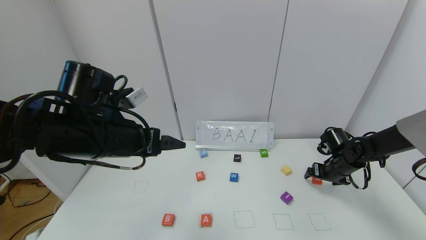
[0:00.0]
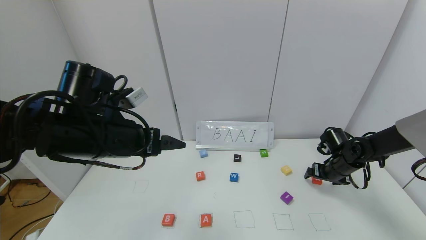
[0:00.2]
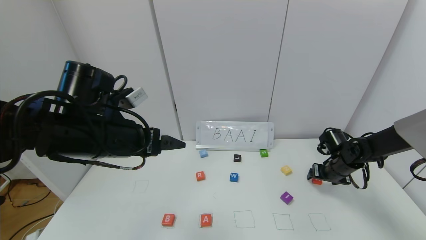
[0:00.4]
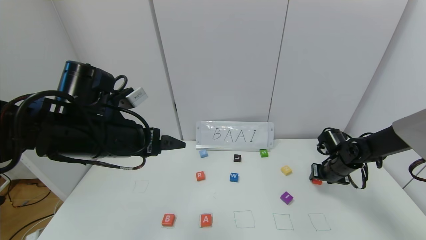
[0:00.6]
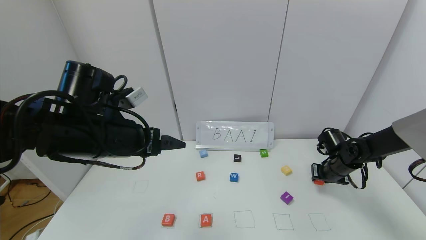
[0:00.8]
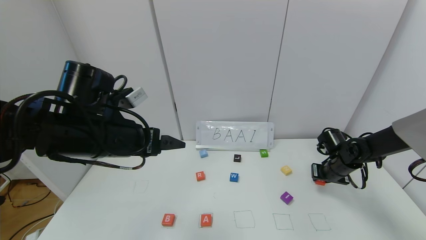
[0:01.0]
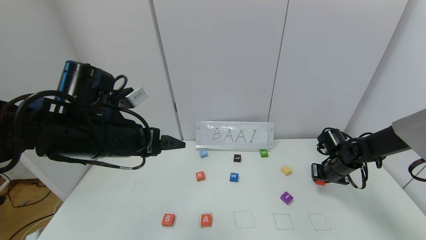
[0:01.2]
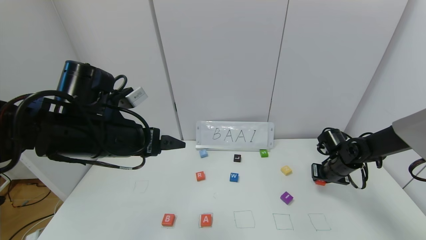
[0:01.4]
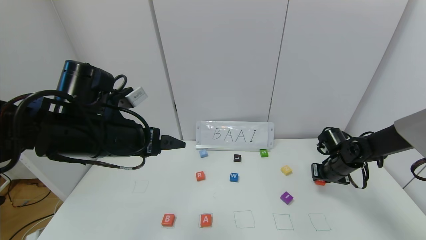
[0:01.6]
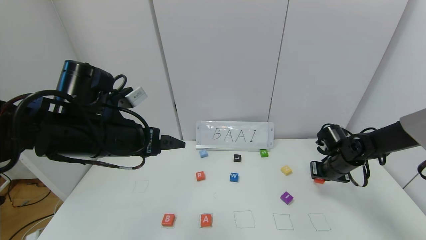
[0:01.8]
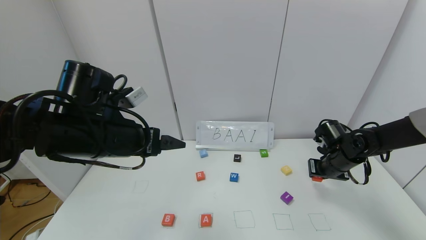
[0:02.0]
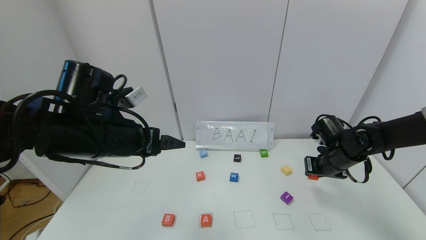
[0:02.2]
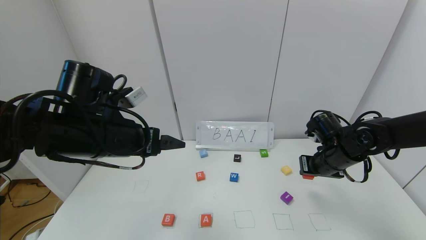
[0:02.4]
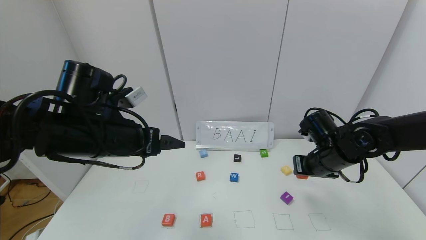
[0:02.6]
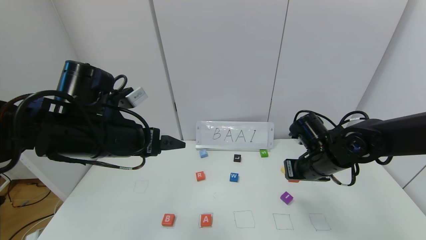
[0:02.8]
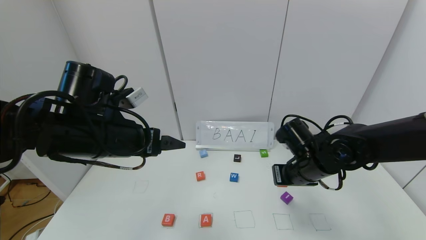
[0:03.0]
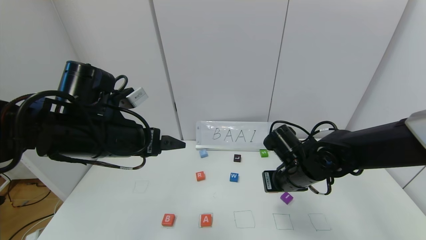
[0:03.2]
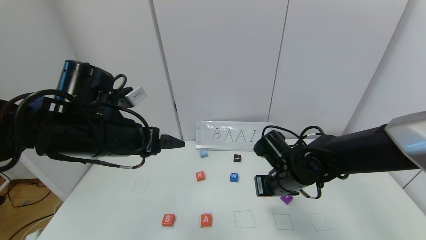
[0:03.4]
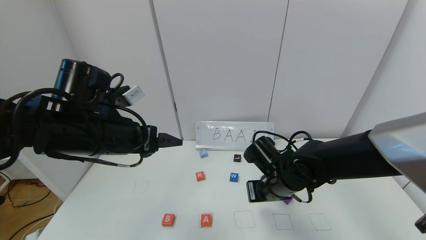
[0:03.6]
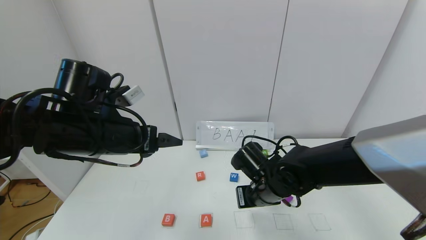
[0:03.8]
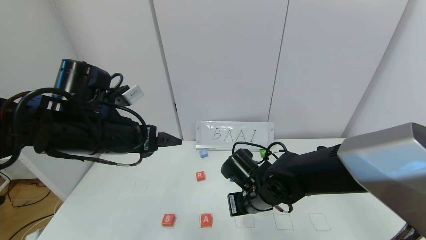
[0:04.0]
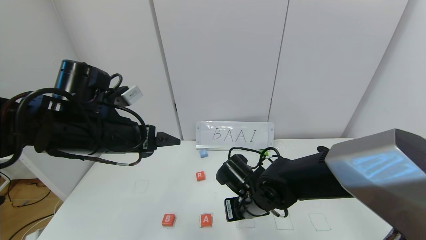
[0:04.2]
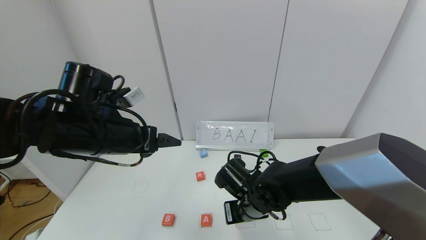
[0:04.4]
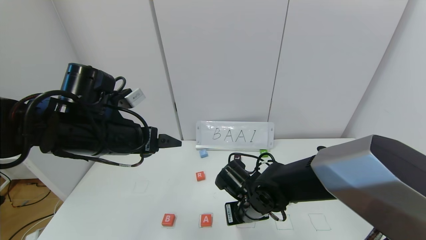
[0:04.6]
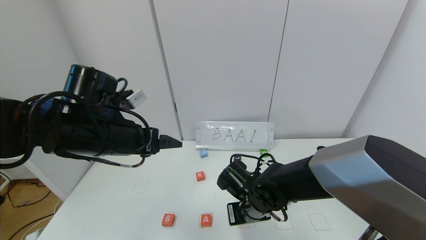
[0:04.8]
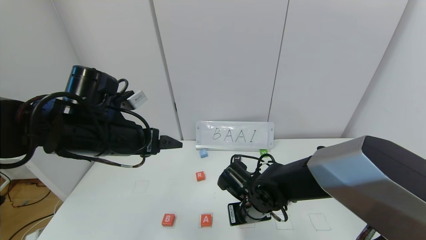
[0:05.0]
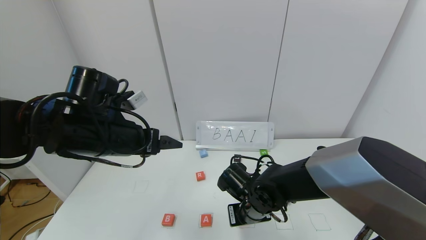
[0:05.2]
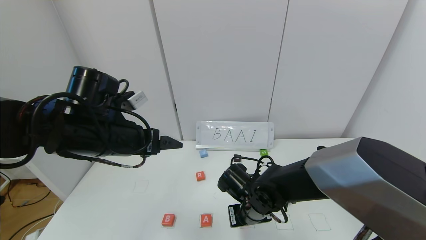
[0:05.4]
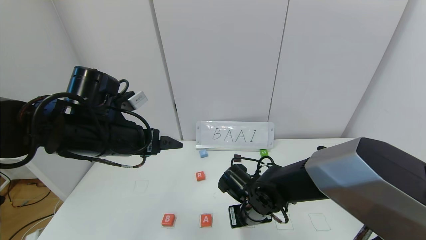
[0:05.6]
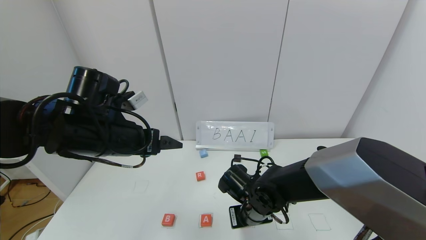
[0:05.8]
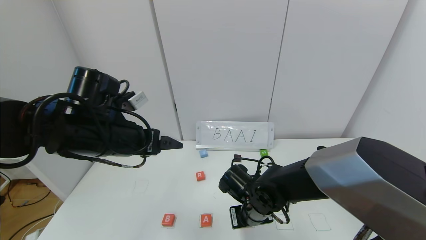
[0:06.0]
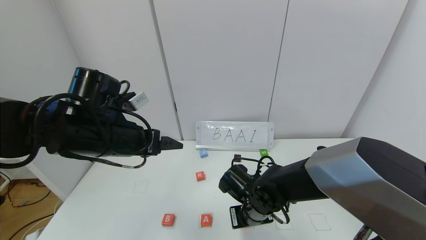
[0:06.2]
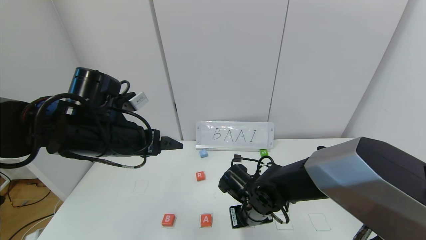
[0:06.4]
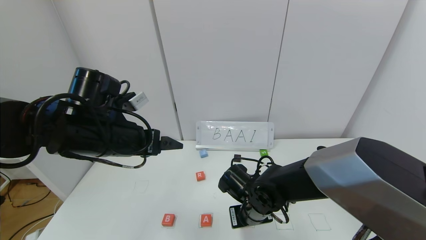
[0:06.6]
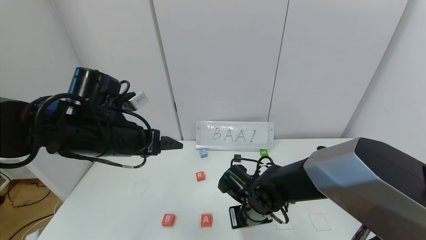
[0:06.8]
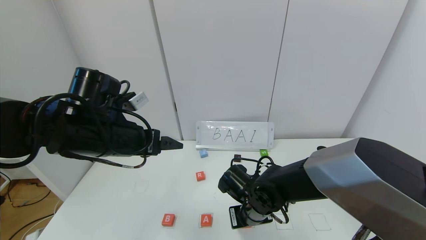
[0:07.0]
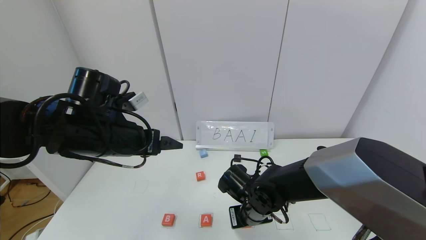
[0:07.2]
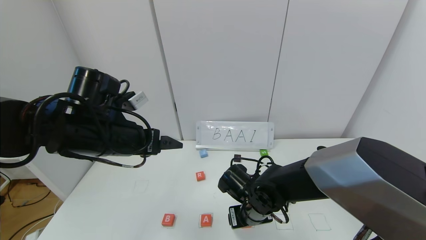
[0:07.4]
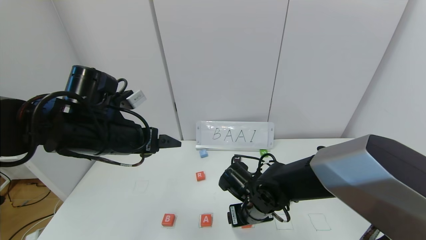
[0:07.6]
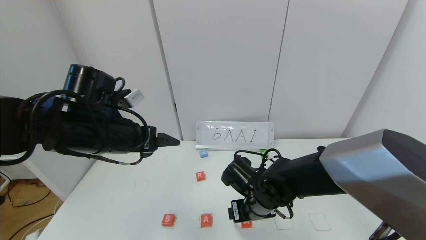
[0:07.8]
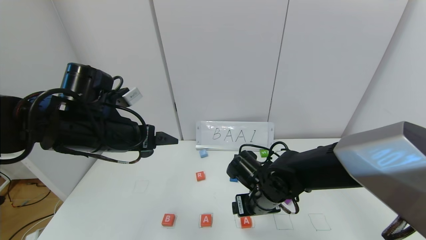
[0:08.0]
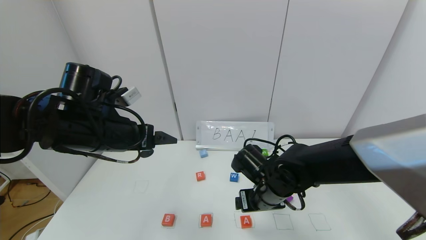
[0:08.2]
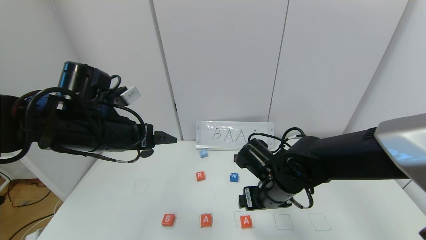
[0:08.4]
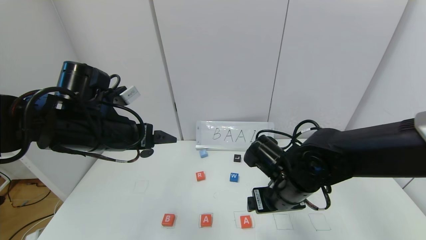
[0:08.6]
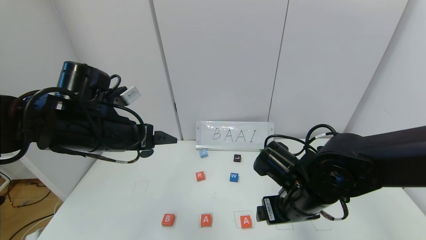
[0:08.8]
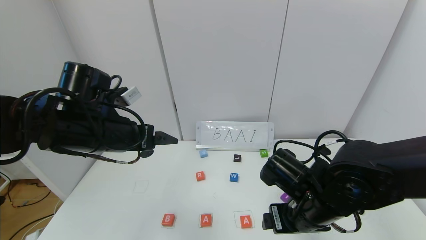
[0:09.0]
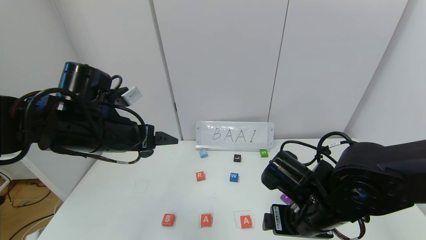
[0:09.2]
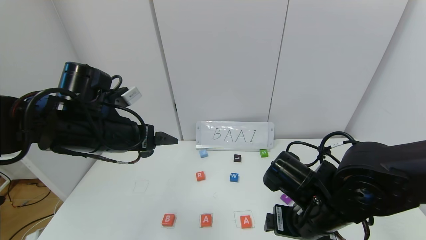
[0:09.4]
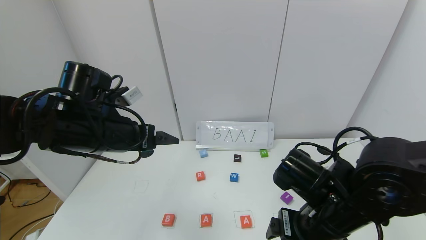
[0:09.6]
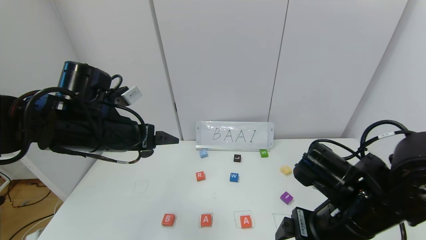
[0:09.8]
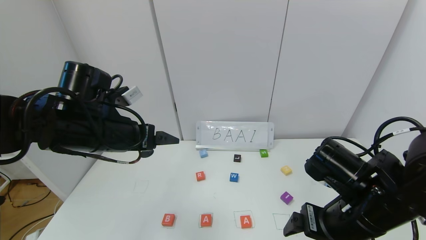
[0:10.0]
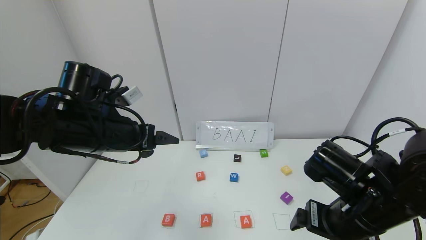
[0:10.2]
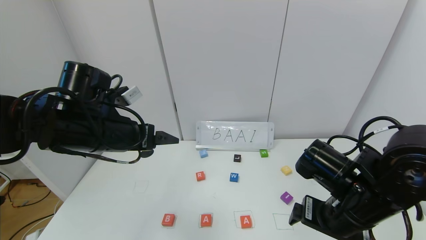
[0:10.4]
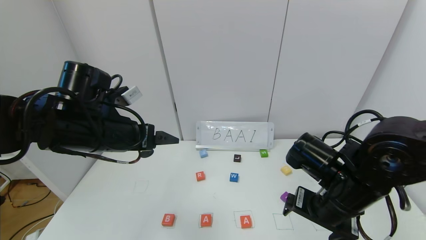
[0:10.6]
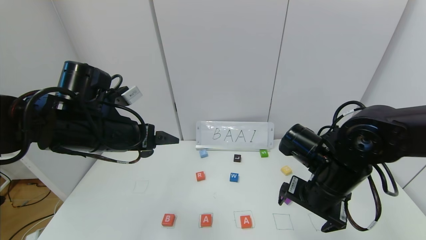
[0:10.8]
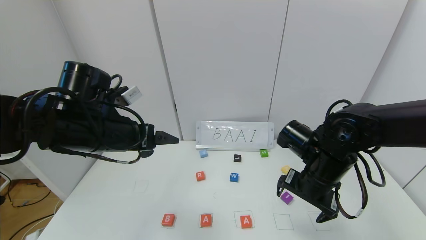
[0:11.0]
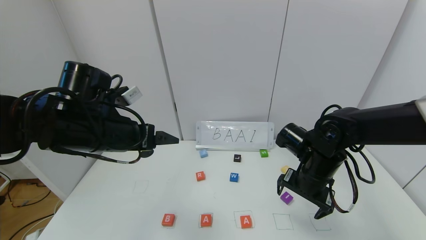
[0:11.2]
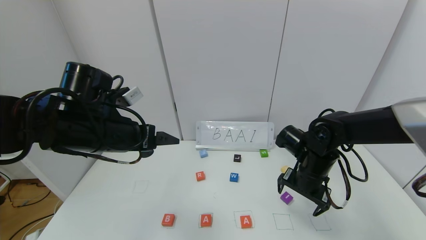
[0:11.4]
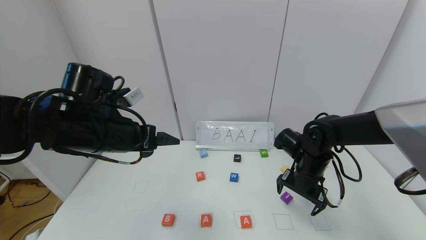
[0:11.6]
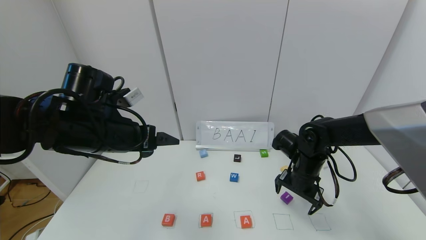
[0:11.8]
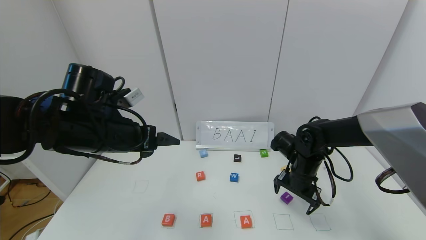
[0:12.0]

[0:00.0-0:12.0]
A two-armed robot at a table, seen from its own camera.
Task of the whole recording: use the gripper to find blocks with the letters b, a, a, and i on the table and arrange them into BAAI, then find r and N and turn the arranged baai into brian.
Step, 0:00.0 to 0:07.4: Place the second block A in the third location.
0:00.0 to 0:01.6: The right gripper closes.
0:01.6 to 0:03.0: The right gripper moves to the left, backward and upward, approximately 20 cm.
0:03.0 to 0:04.4: The right gripper moves to the left and downward, about 15 cm.
0:04.4 to 0:06.0: The grippers make only small movements.
0:06.0 to 0:07.6: The right gripper opens.
0:07.6 to 0:09.0: The right gripper heads upward, to the right and backward, covering approximately 15 cm.
0:09.0 to 0:10.4: The right gripper ends up roughly 5 cm from where it was.
0:10.4 to 0:12.0: The right gripper is displaced forward and downward by some 15 cm.

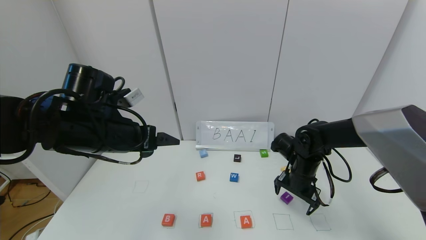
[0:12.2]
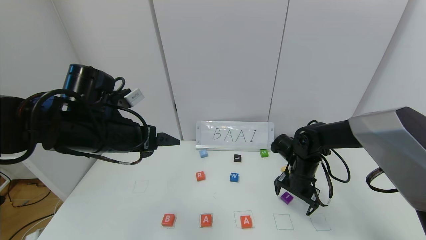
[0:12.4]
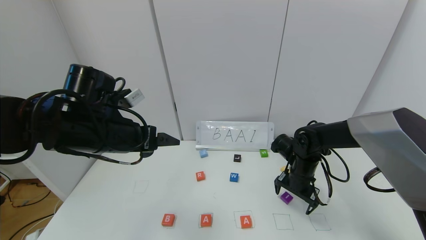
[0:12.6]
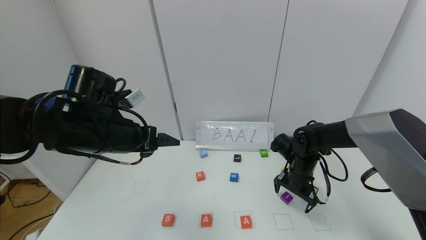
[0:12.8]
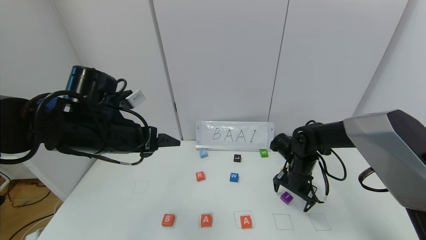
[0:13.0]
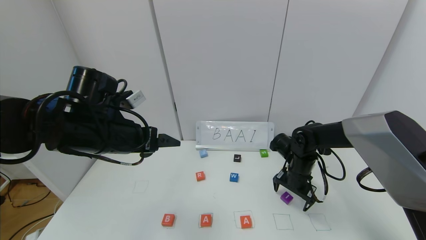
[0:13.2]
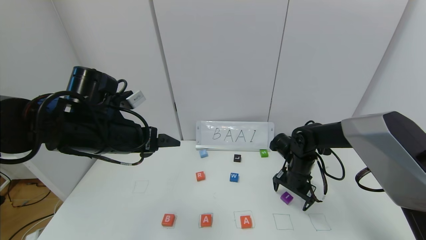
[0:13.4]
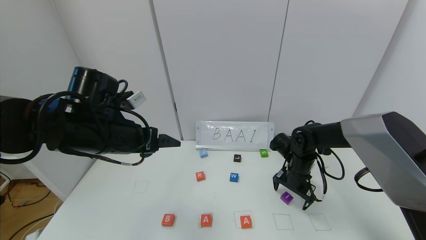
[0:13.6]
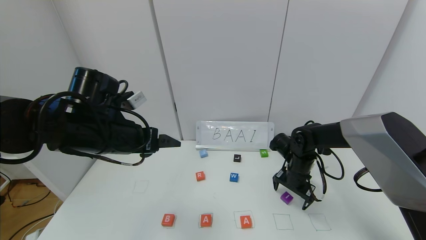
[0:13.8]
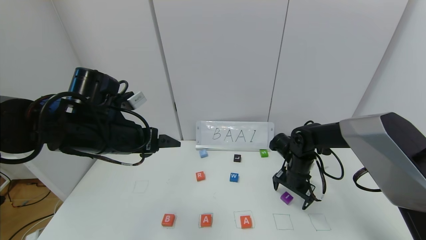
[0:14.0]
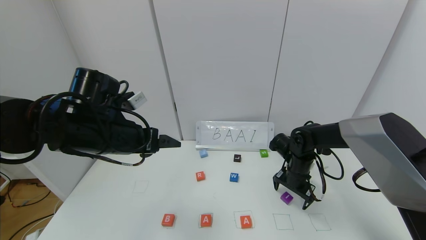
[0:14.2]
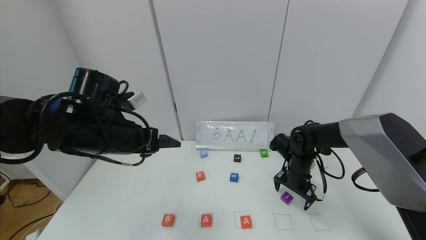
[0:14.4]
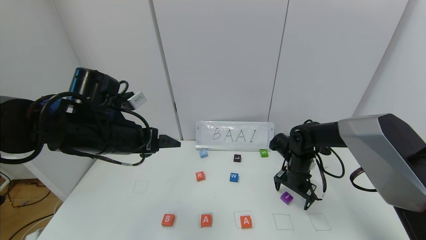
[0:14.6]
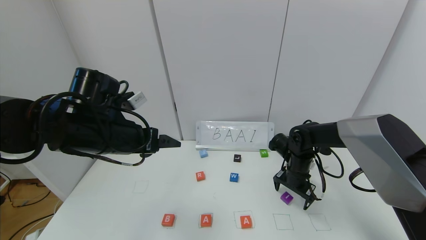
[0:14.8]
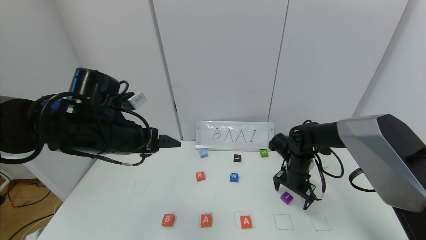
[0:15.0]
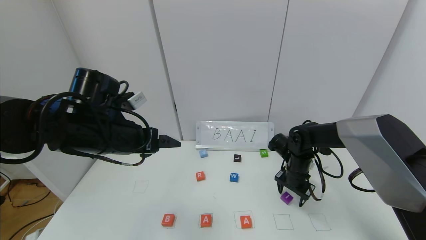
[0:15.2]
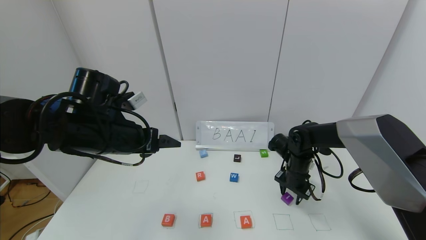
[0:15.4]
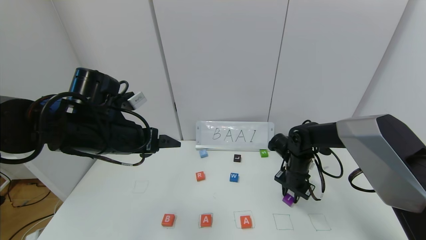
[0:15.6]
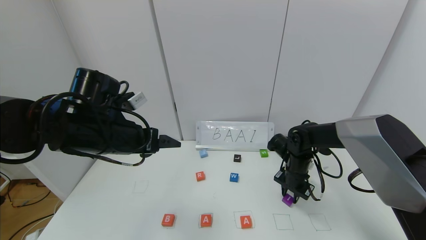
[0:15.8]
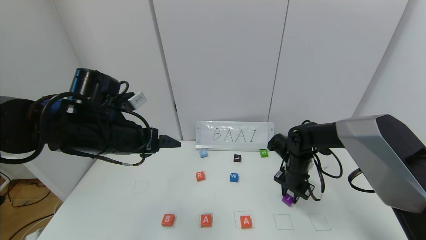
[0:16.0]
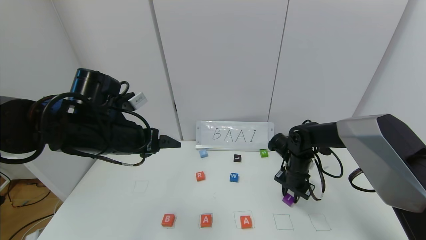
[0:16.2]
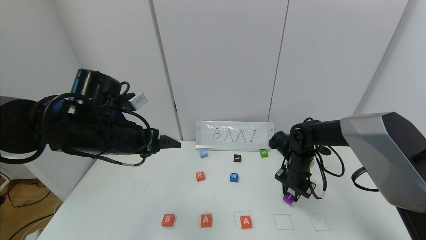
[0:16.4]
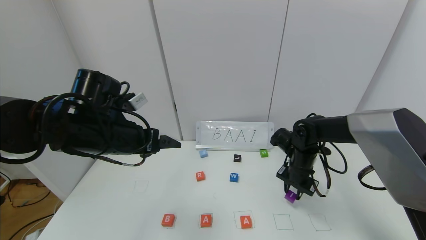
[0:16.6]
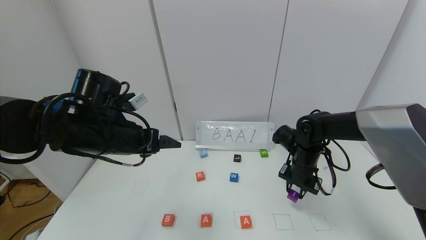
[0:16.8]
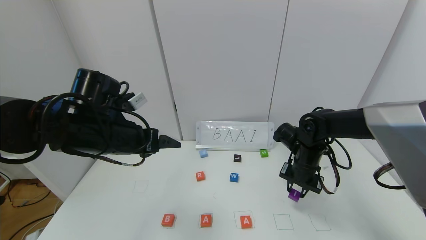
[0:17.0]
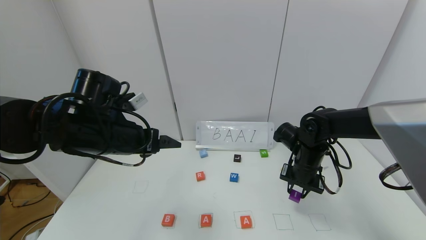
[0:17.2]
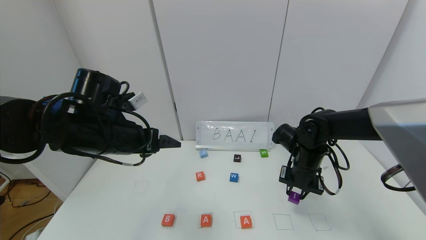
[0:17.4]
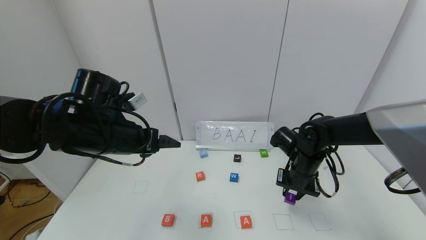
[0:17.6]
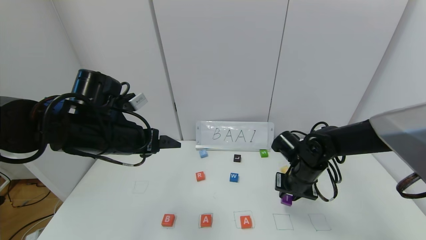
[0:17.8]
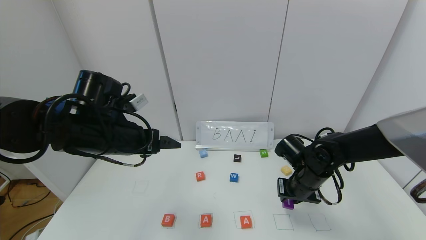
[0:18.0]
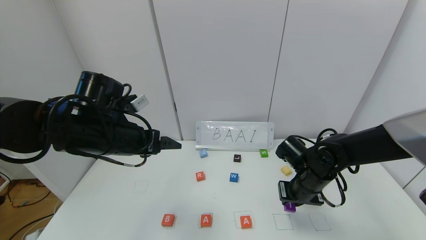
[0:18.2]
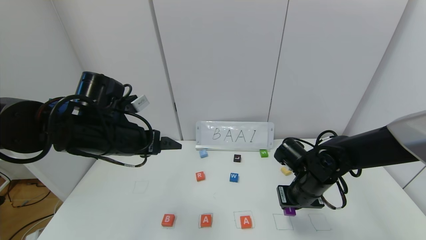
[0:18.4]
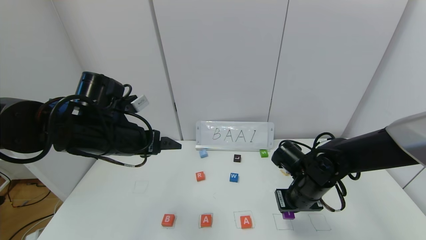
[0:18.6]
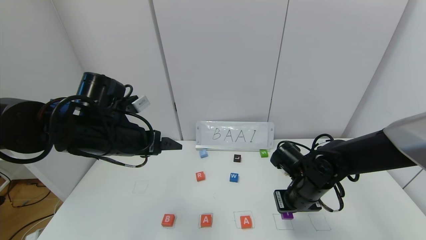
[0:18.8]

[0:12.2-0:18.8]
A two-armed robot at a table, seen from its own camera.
Task of the whole recording: use the gripper to find blocks with the letters b, a, a, and i on the table and arrange them into BAAI, then find r and N and turn the arranged baai into brian.
0:12.2 to 0:13.8: The grippers move only a little.
0:13.8 to 0:15.4: The right gripper closes.
0:15.4 to 0:17.2: The right gripper goes roughly 5 cm upward.
0:17.2 to 0:18.8: The right gripper goes approximately 5 cm backward.
